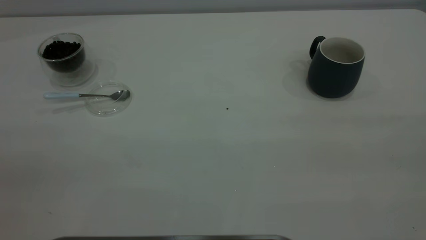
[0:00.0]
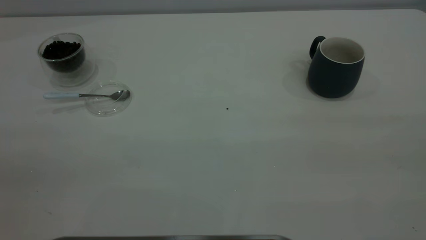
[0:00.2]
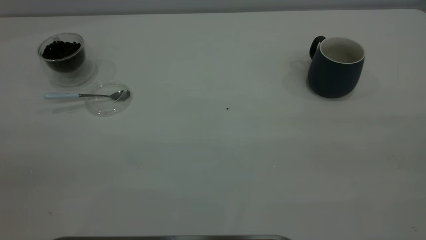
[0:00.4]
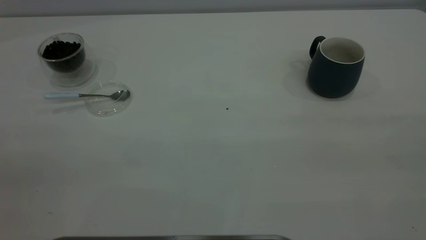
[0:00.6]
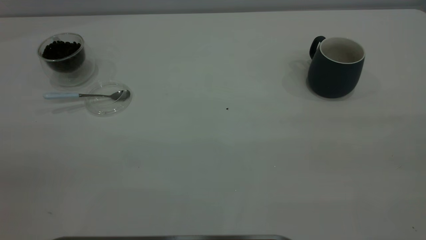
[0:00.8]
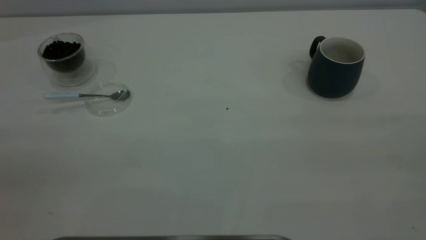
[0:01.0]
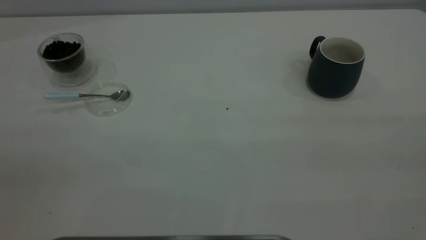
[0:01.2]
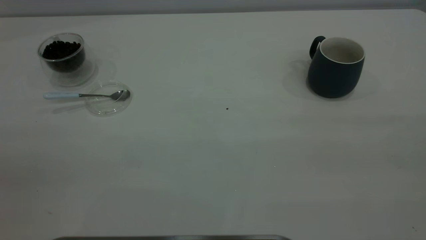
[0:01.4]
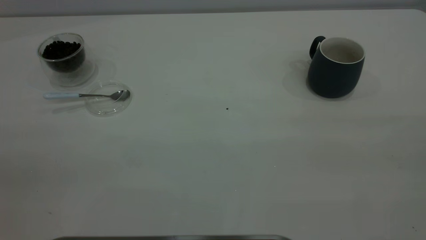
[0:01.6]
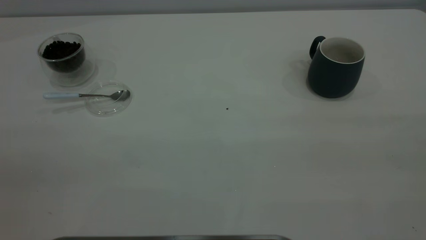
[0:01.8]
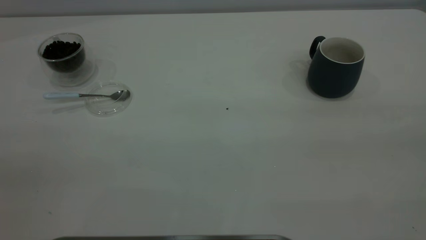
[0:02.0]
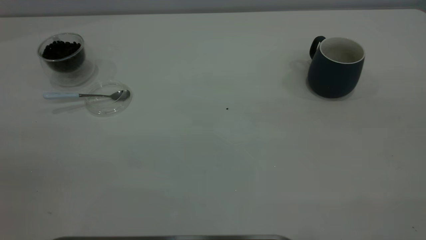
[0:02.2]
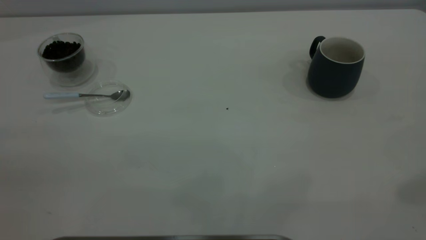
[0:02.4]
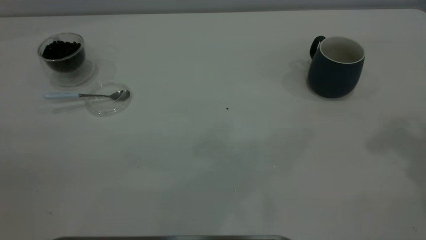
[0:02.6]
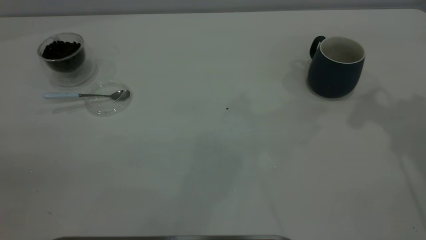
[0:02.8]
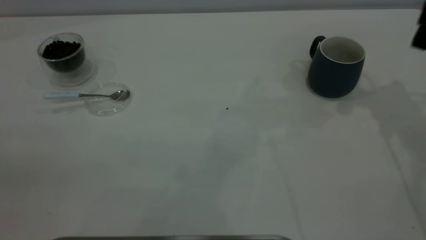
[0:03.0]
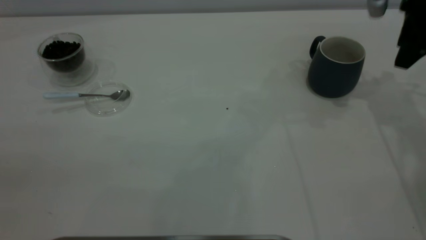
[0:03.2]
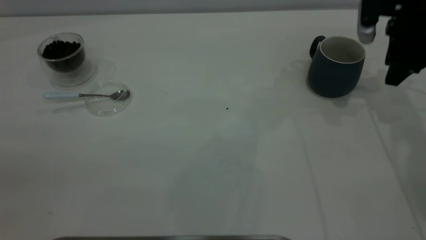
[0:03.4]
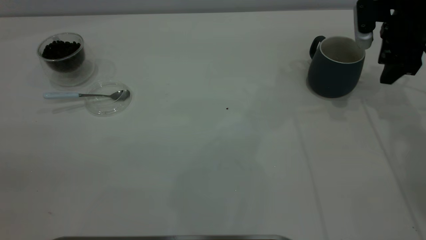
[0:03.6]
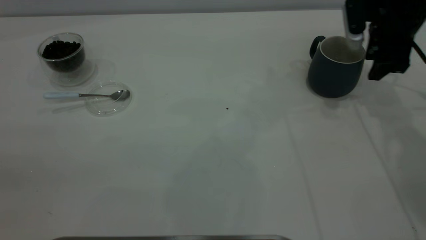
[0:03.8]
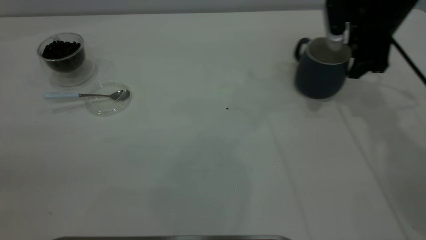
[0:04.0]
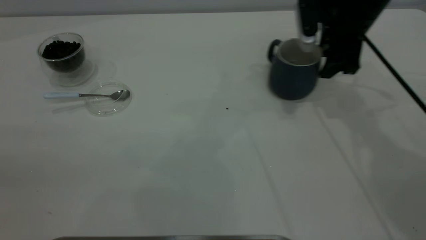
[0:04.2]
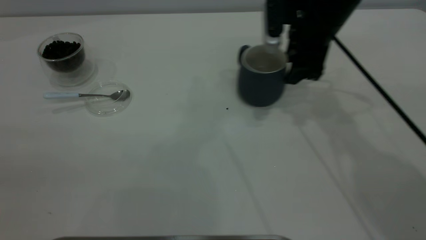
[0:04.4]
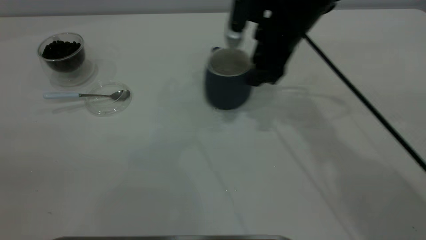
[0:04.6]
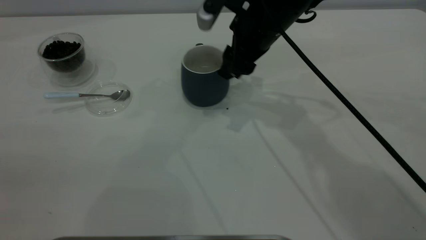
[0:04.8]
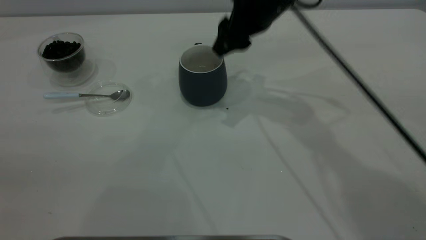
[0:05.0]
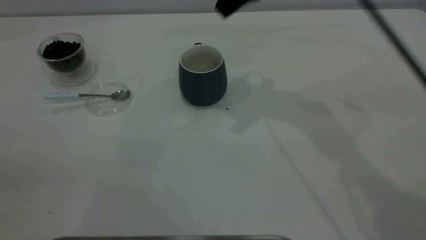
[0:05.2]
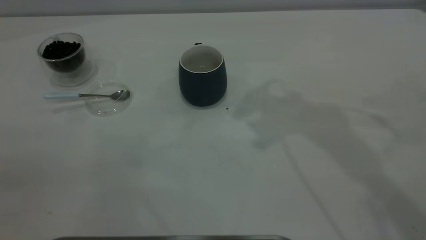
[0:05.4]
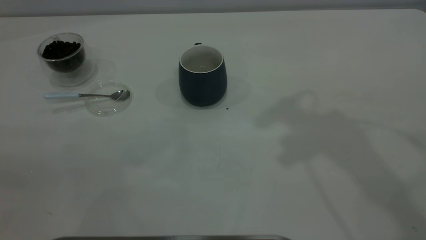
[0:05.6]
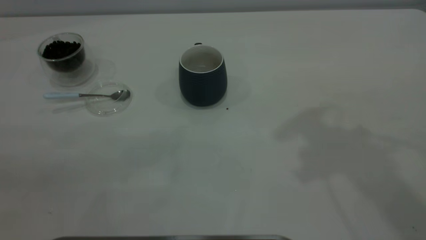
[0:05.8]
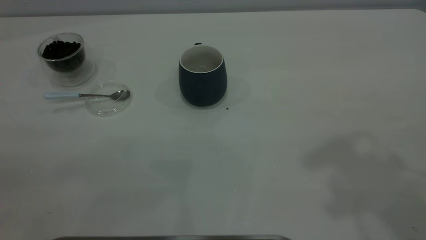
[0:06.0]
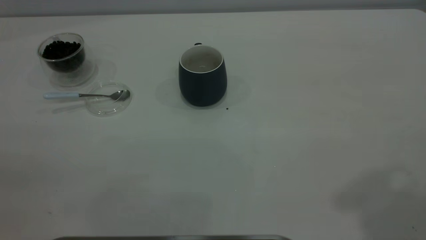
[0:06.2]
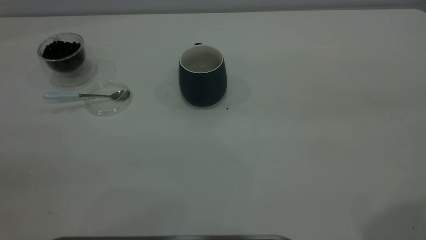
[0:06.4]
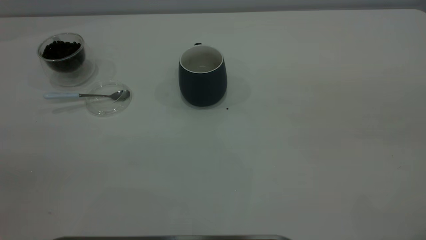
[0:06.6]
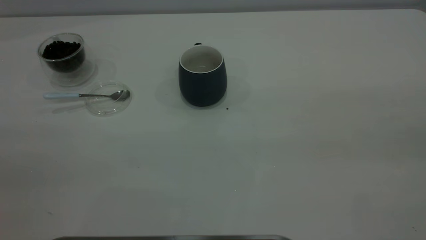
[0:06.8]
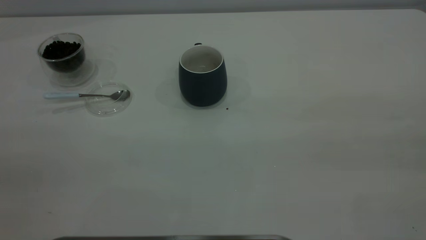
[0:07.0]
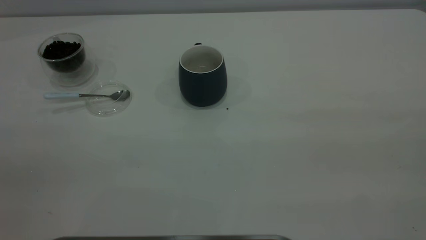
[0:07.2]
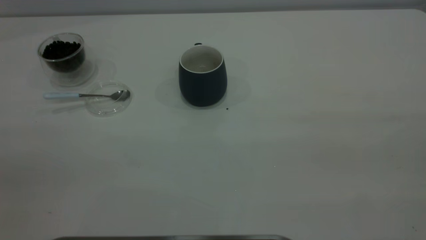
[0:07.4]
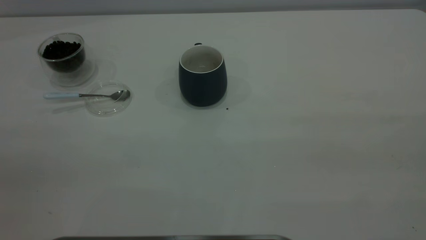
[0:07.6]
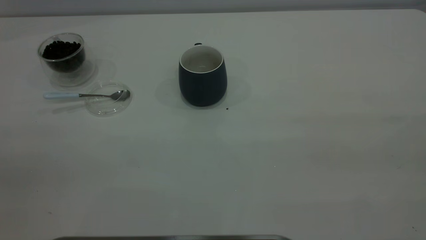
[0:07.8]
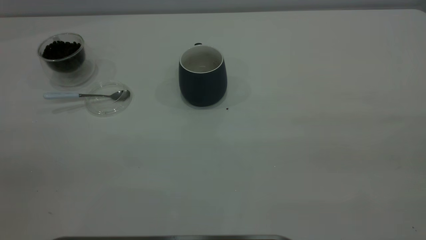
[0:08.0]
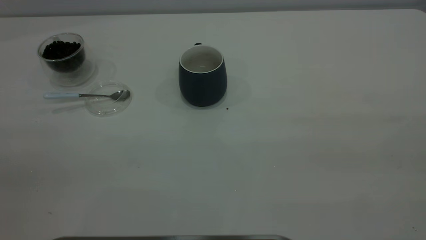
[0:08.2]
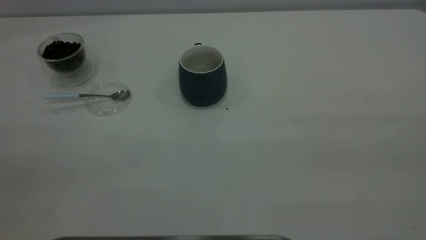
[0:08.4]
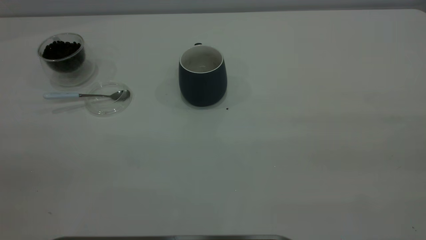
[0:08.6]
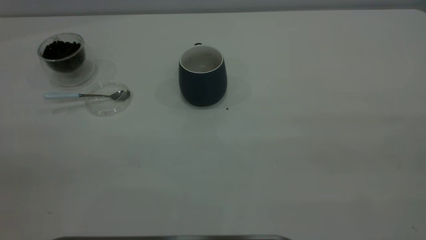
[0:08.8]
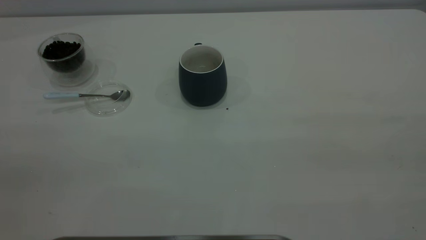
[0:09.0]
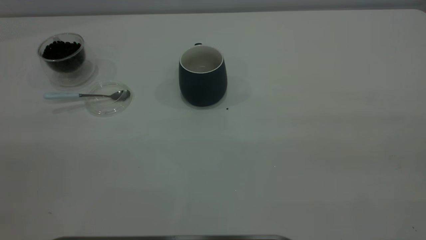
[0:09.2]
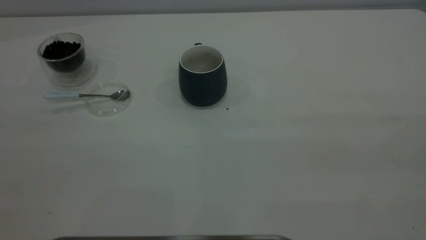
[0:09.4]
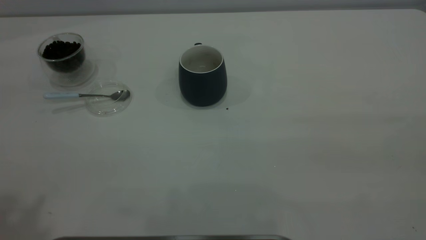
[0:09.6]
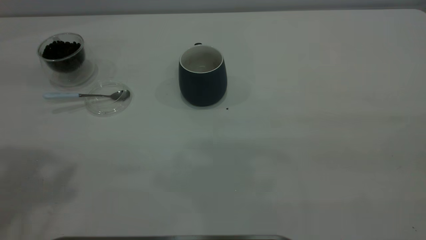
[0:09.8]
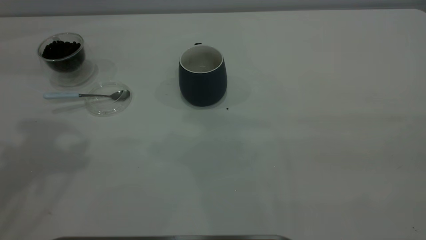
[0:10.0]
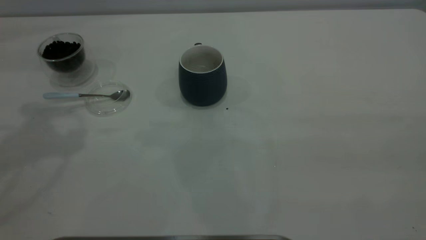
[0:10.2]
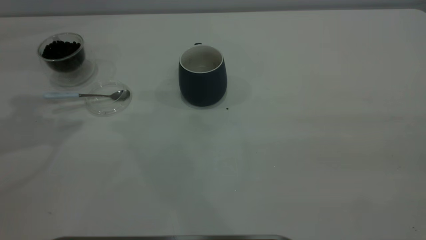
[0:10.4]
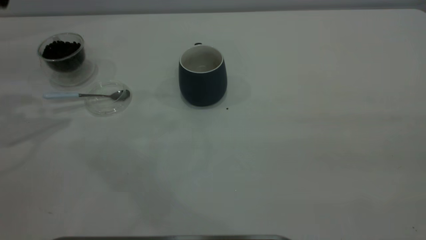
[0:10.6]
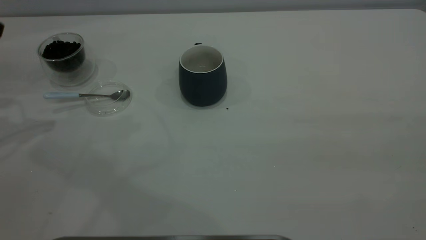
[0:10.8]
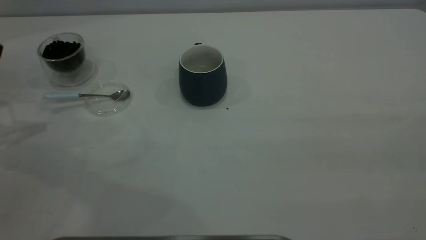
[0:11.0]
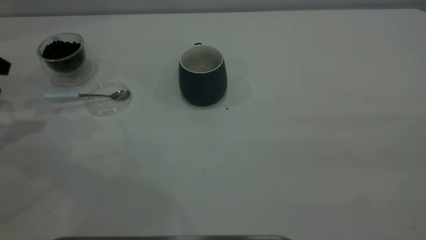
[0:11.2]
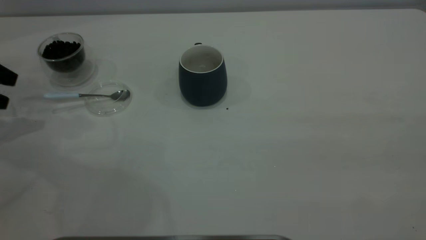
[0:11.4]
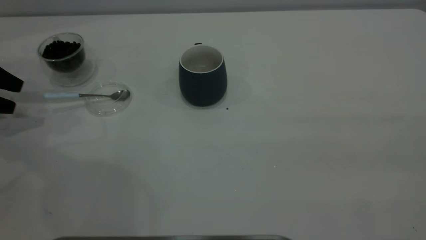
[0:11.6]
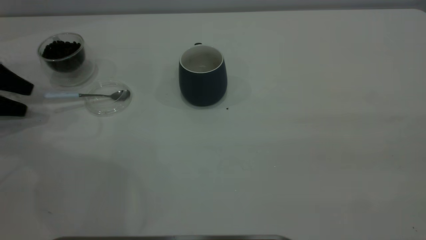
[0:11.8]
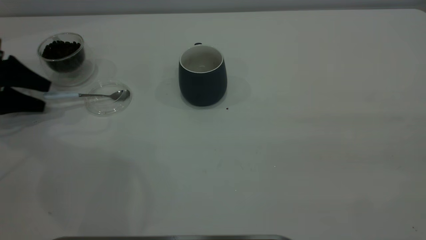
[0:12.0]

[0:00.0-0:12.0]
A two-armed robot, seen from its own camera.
Task of the whole recording: the right gripper place the grey cup in the center of the table, the left gripper take the blue spoon from the cup lid and scoop out the coffee beans from the coffee cup and put them into the grey cup, the left gripper put the spoon back into the cup lid.
Step, 0:00.0 to 0:05.0: Move the cup to the center of view.
0:00.0 to 0:01.6: Neither gripper changes place.
0:03.0 to 0:04.4: The right gripper heads to the left and downward, covering some 15 cm.
0:04.4 to 0:06.0: The right gripper moves upward and backward, roughly 35 cm.
0:07.6 to 0:09.0: The two grippers keep their place.
0:10.4 to 0:12.0: The left gripper shifts about 25 cm downward.

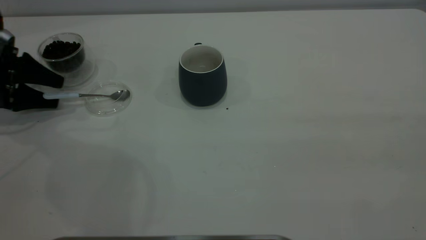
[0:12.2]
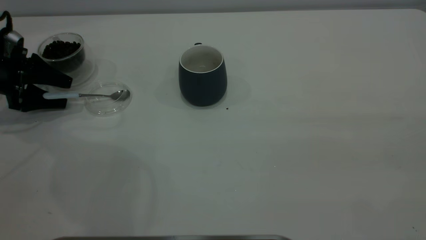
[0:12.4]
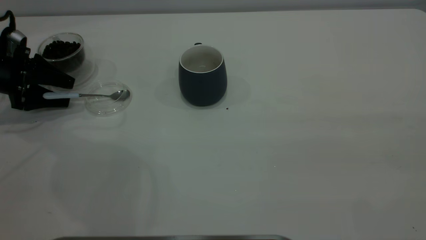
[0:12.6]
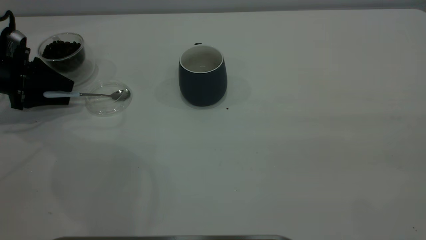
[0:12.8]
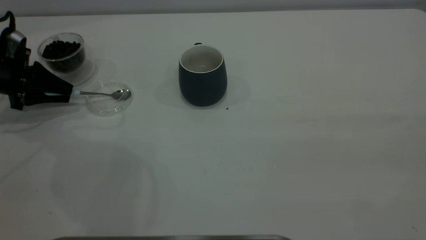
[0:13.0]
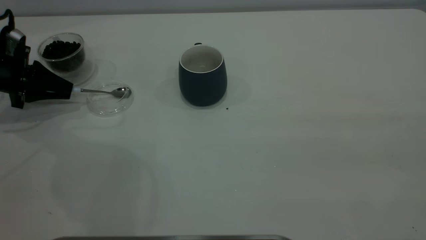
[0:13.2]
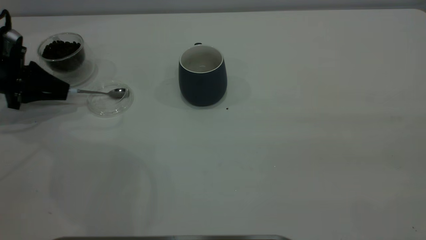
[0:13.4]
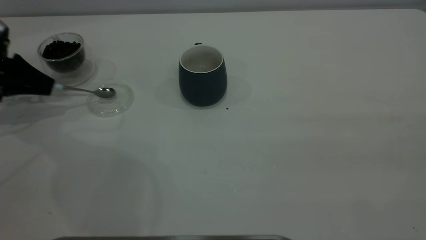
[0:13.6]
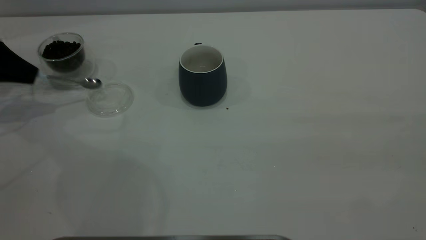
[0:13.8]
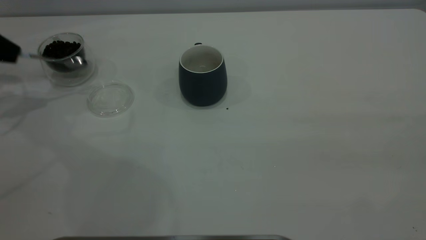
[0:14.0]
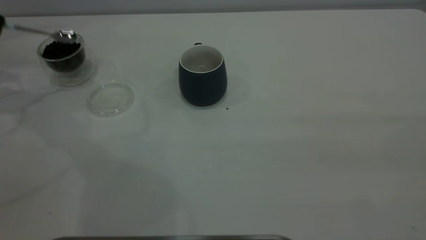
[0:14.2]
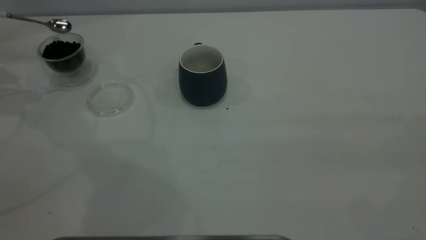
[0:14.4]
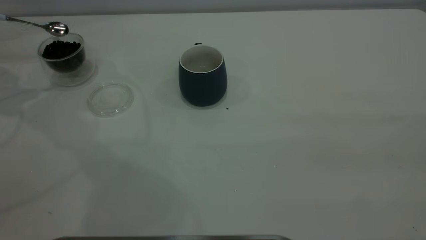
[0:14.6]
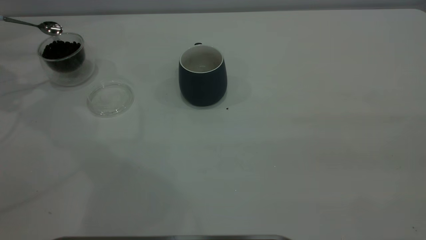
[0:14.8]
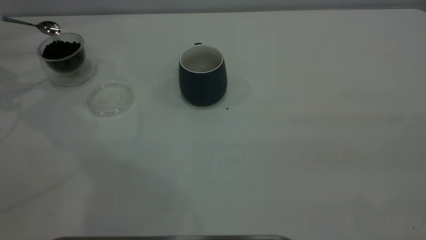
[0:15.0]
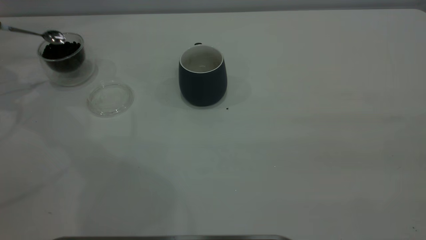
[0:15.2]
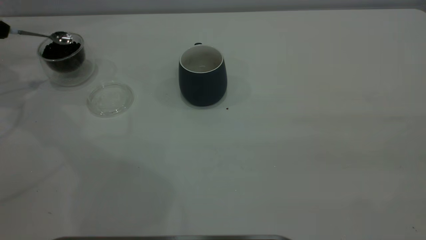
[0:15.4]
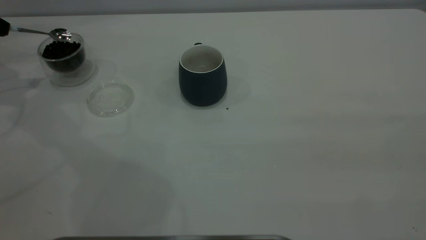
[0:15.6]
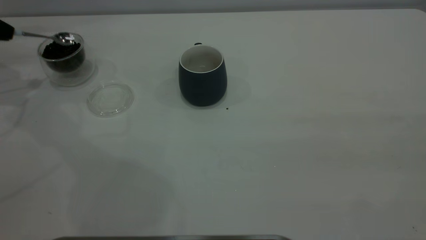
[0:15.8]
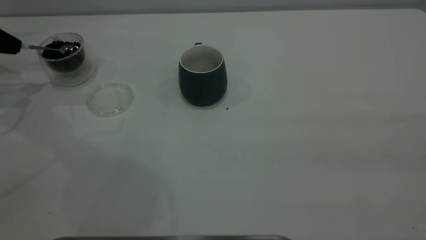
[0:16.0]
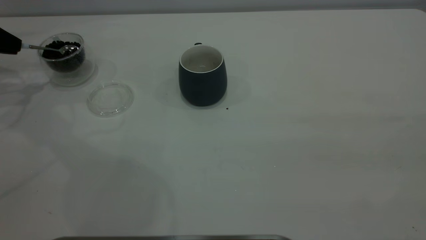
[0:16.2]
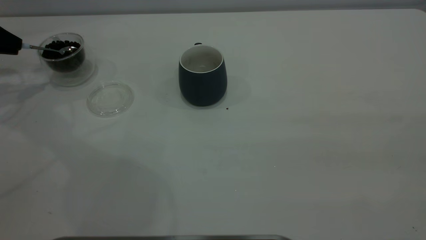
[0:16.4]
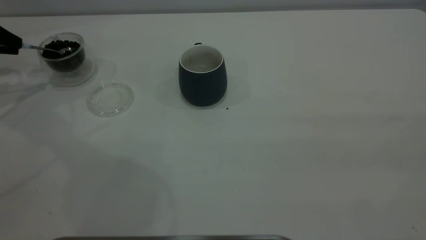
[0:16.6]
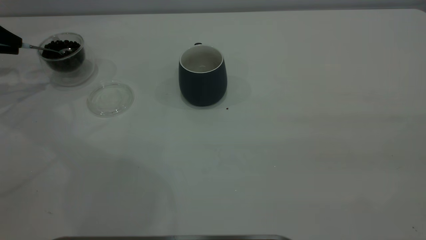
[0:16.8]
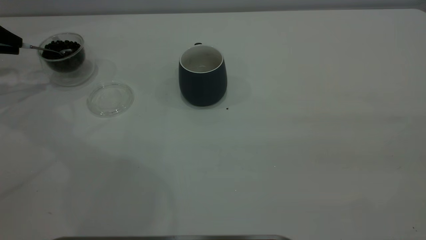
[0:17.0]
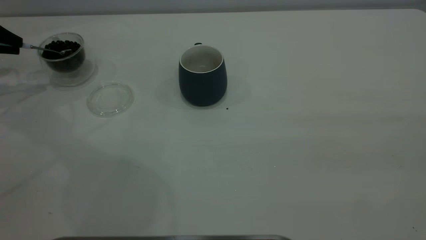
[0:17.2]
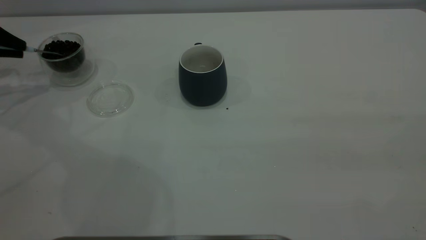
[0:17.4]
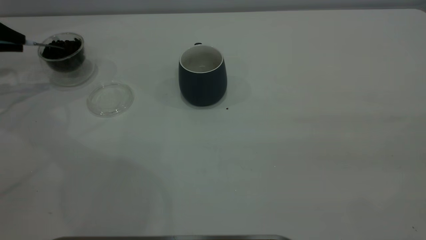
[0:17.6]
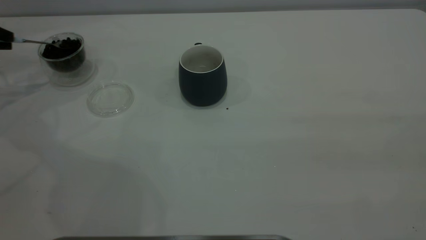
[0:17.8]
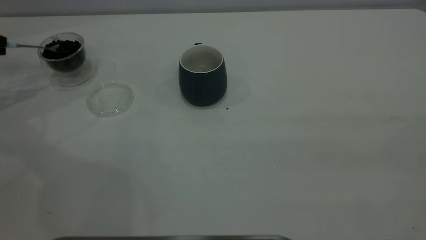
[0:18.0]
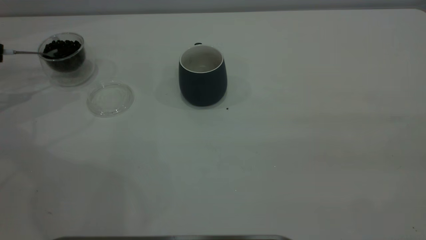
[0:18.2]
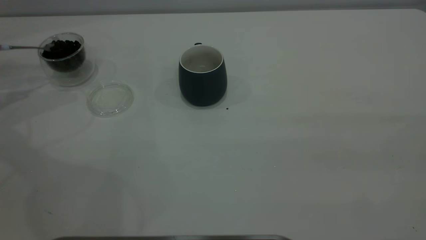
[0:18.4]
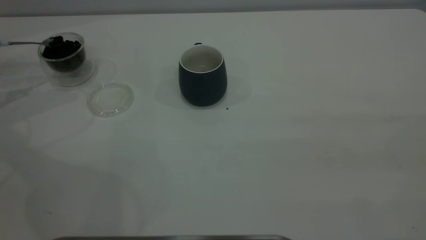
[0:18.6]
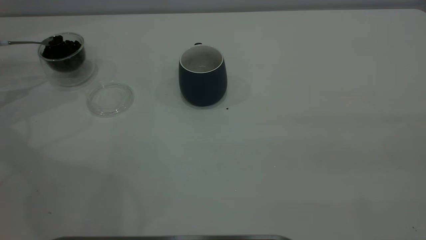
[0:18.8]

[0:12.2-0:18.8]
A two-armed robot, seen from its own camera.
Task of the whole recording: the right gripper place the grey cup in the center of the table, the left gripper take the blue spoon from the cup lid and scoop out the coffee beans from the coffee cup and put them into the grey cup, the left gripper put the spoon back into the cup lid.
0:12.2 to 0:13.8: The left gripper is displaced upward by about 5 cm, and closes up.
0:13.8 to 0:15.4: The left gripper travels upward by some 5 cm.
0:17.2 to 0:18.8: The left gripper changes place by approximately 5 cm.
